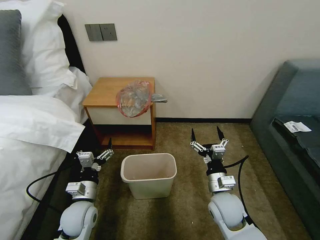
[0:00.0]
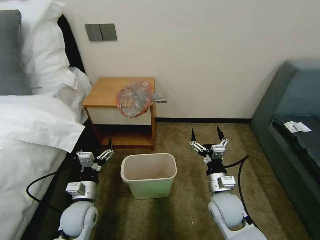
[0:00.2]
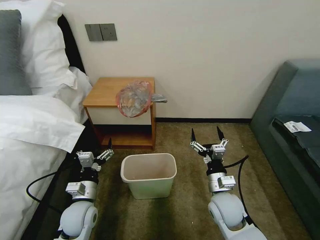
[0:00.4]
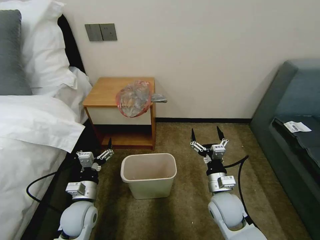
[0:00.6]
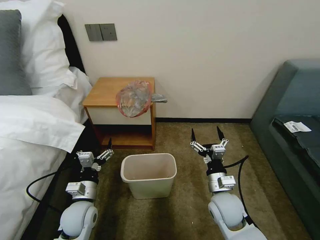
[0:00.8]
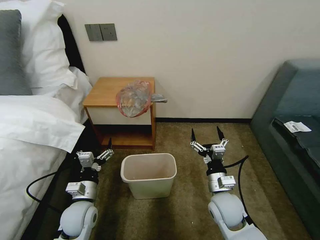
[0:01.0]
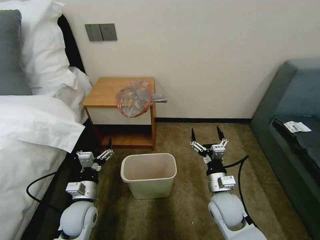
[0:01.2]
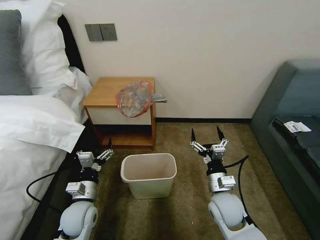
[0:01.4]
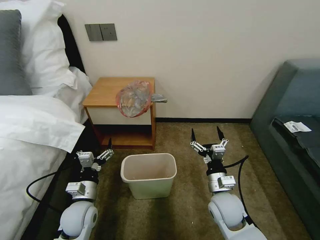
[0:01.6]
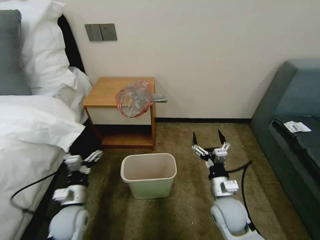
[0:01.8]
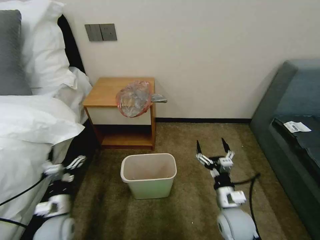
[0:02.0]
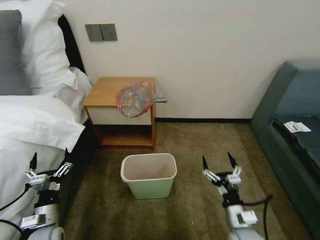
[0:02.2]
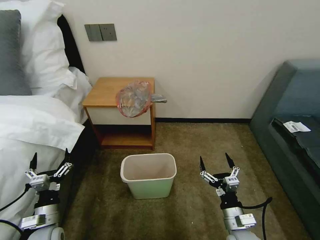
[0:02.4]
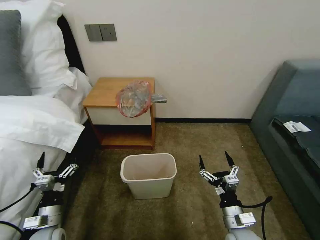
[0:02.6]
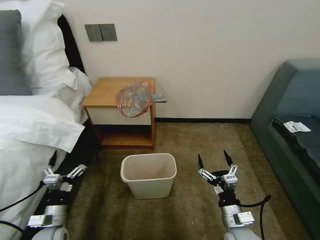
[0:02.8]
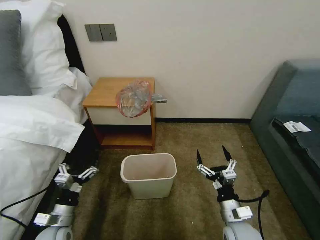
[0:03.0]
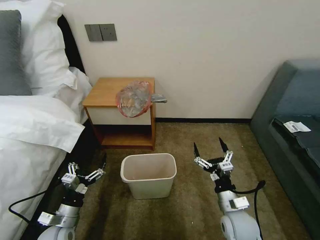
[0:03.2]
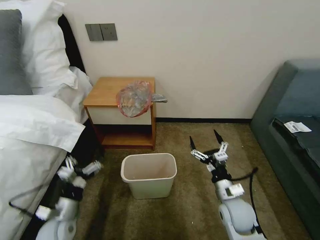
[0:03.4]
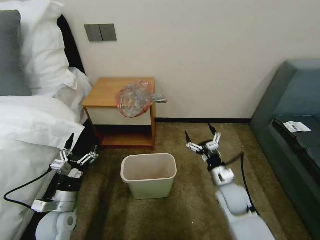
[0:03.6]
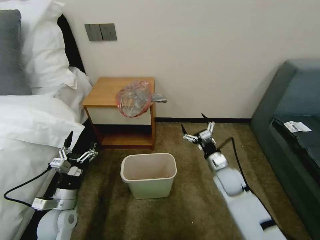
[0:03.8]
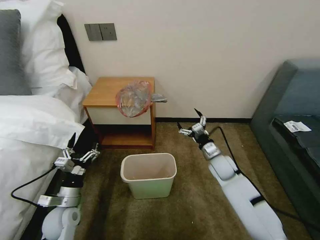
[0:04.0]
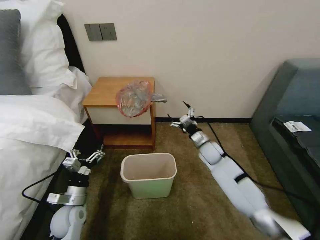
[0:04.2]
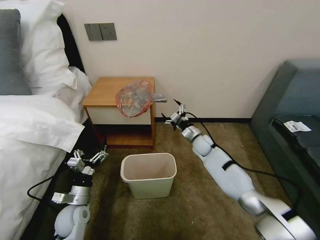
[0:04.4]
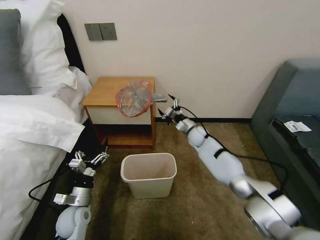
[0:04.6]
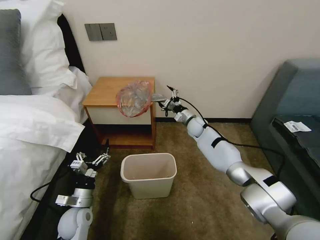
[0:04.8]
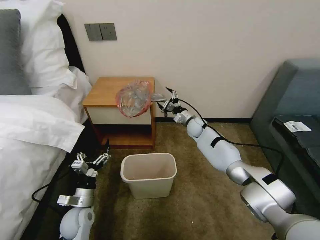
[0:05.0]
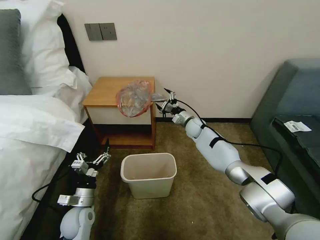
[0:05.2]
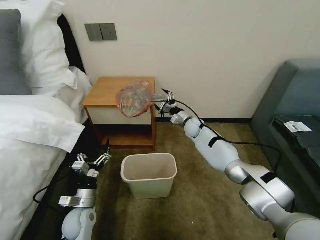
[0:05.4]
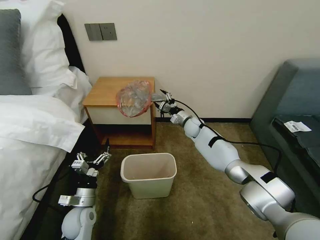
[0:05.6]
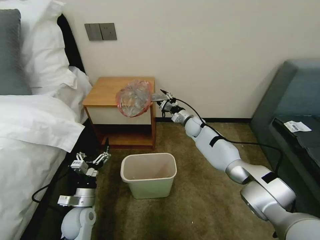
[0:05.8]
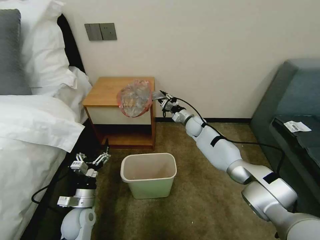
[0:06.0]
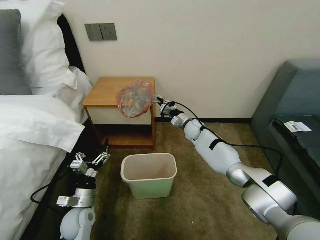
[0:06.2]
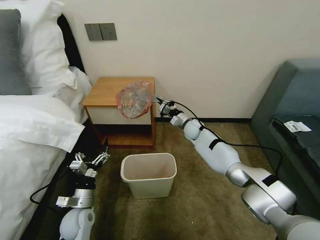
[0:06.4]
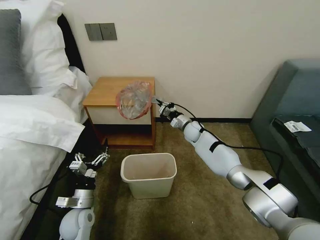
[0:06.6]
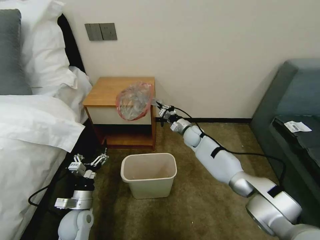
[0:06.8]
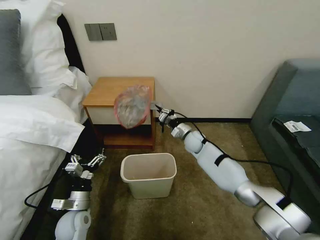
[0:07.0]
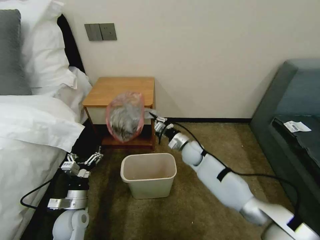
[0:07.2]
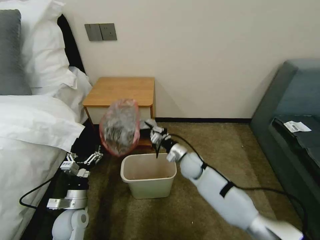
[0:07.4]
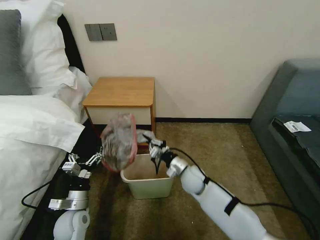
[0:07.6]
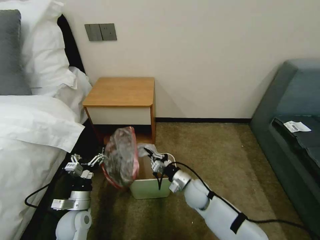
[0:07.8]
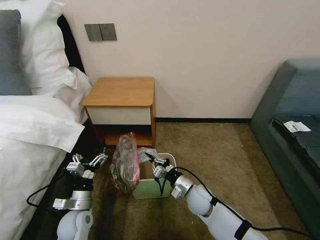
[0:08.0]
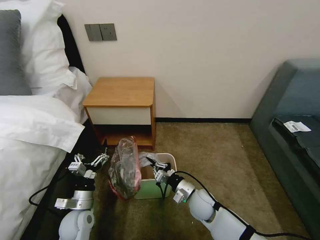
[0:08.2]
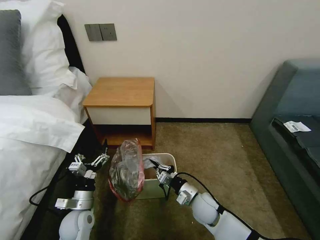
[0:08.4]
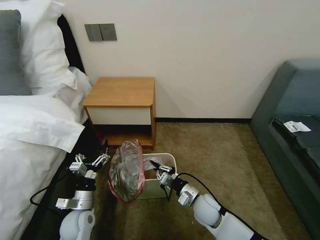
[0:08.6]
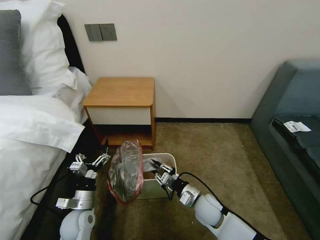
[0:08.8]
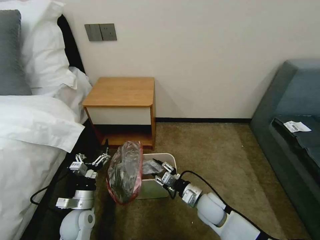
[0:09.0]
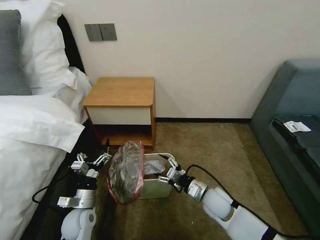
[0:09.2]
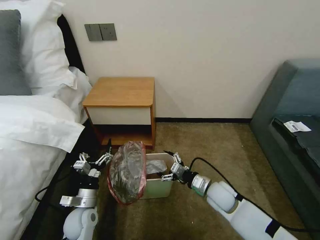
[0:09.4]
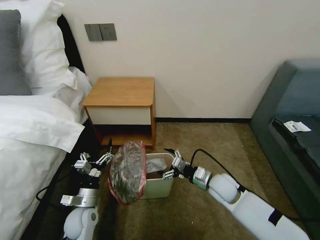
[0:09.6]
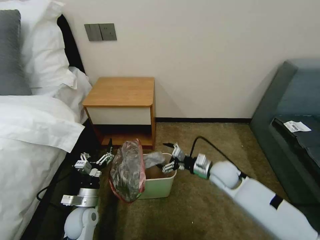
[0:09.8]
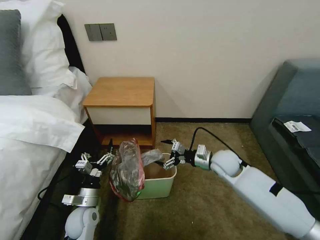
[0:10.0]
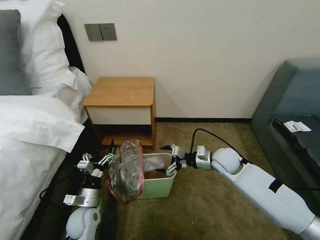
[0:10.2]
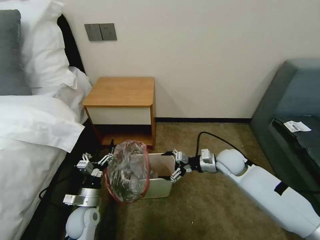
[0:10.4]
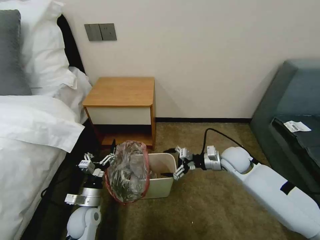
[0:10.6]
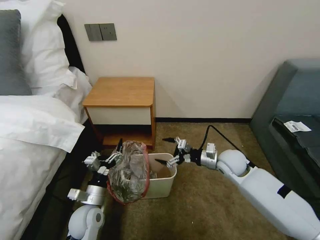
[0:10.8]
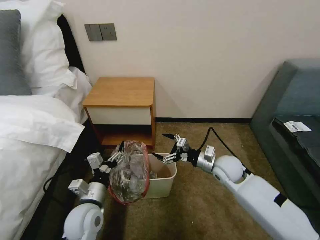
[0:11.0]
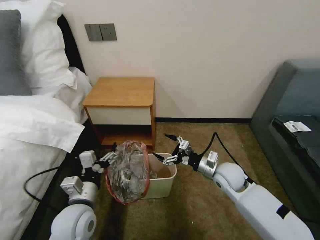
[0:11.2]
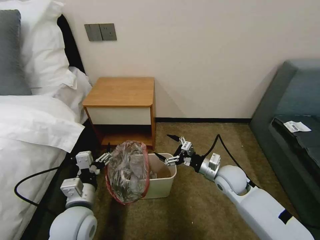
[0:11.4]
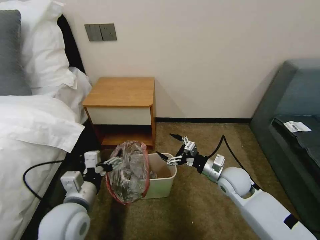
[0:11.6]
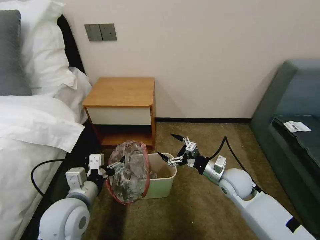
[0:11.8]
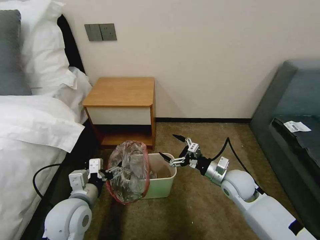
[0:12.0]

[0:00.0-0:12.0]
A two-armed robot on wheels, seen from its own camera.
Task of the whole recording: Pick up the garbage bag from the table and place it over the trash can.
0:01.6 to 0:03.0: The left gripper heads to the left and backward, covering roughly 10 cm. Meanwhile the right gripper travels backward by about 5 cm.
0:03.0 to 0:04.4: The left gripper shifts about 5 cm forward; the right gripper shifts roughly 35 cm forward.
0:04.4 to 0:06.0: The right gripper moves forward, some 5 cm, and closes up.
0:06.0 to 0:07.6: The right gripper travels backward by approximately 25 cm, and closes up.
0:07.6 to 0:09.0: The right gripper moves backward, roughly 10 cm, and opens its fingers.
0:09.0 to 0:10.4: The right gripper moves forward, upward and to the right, about 20 cm, and opens.
0:10.4 to 0:12.0: The right gripper shifts some 10 cm backward. The left gripper heads upward, covering roughly 15 cm.

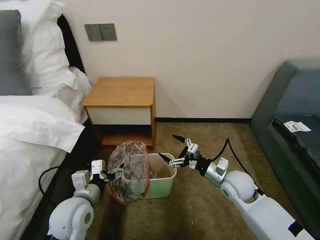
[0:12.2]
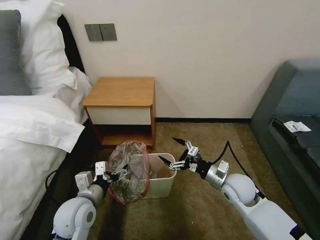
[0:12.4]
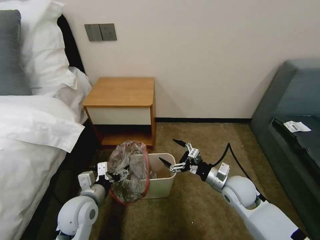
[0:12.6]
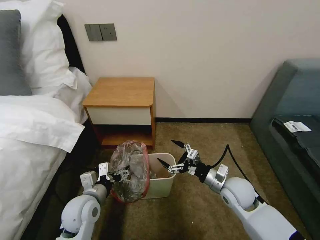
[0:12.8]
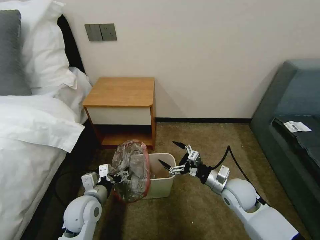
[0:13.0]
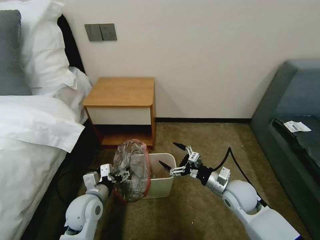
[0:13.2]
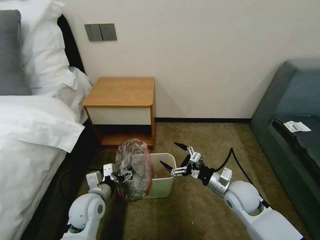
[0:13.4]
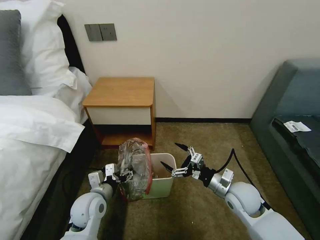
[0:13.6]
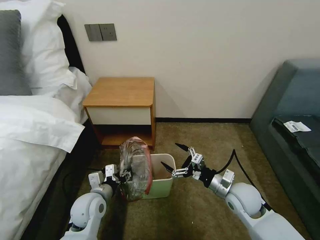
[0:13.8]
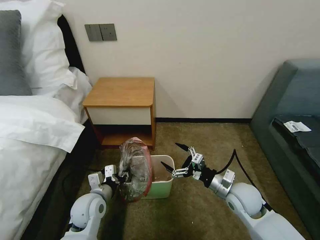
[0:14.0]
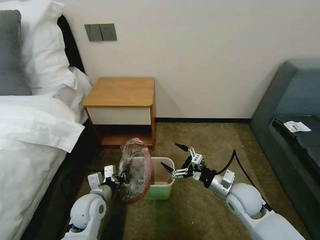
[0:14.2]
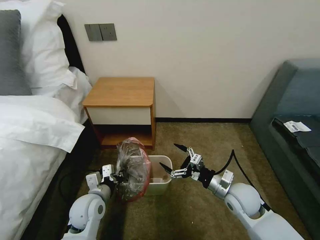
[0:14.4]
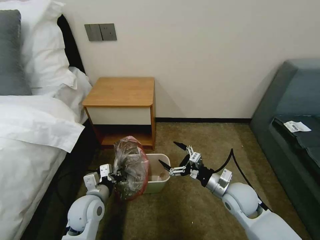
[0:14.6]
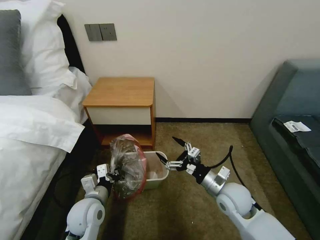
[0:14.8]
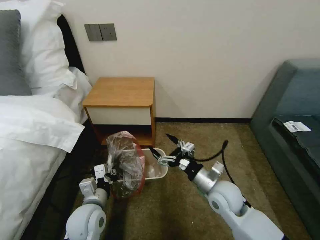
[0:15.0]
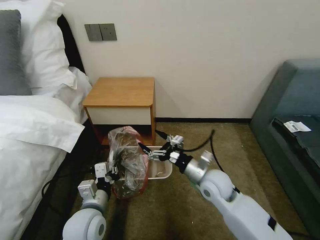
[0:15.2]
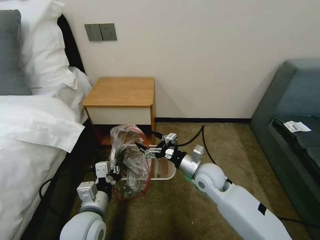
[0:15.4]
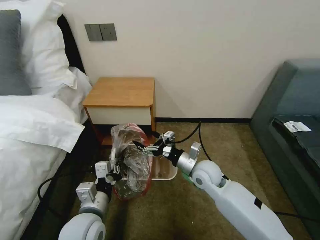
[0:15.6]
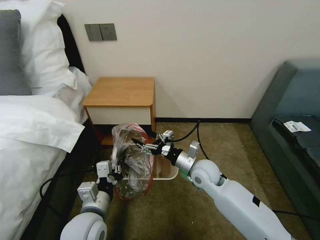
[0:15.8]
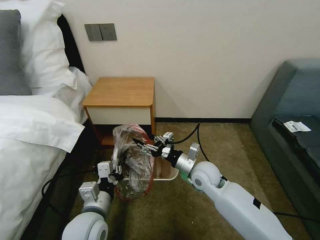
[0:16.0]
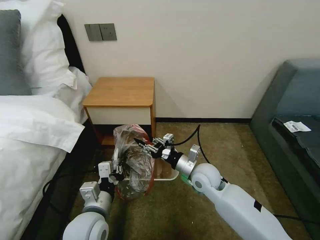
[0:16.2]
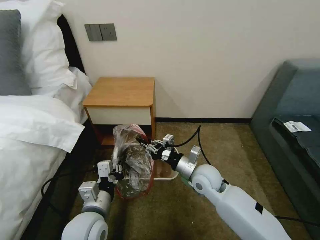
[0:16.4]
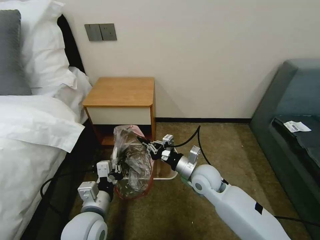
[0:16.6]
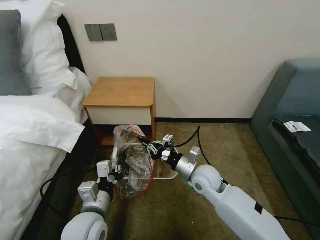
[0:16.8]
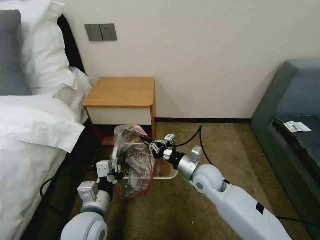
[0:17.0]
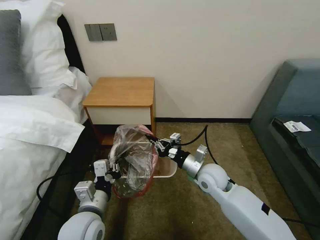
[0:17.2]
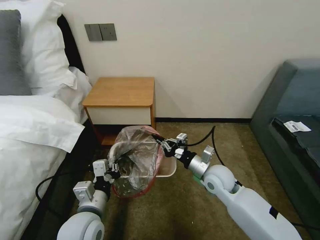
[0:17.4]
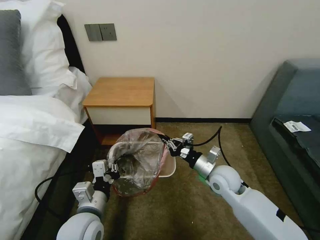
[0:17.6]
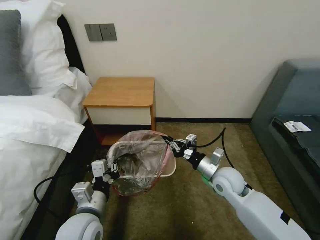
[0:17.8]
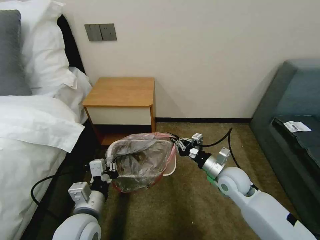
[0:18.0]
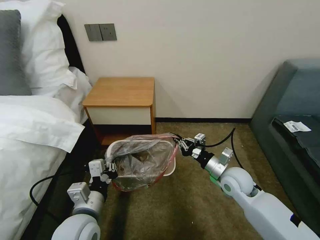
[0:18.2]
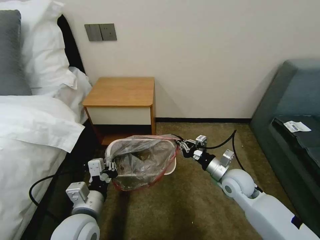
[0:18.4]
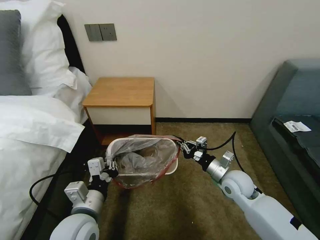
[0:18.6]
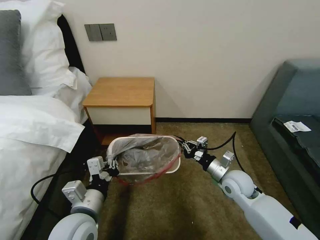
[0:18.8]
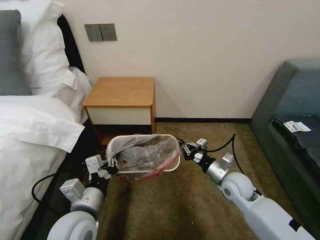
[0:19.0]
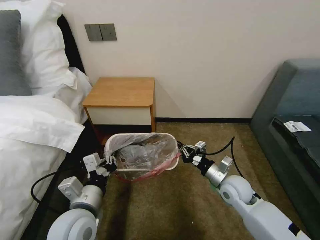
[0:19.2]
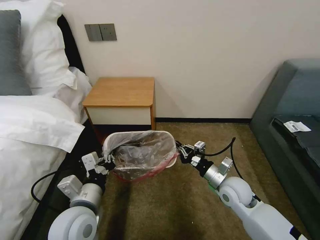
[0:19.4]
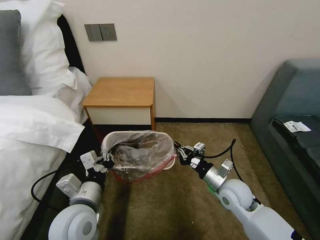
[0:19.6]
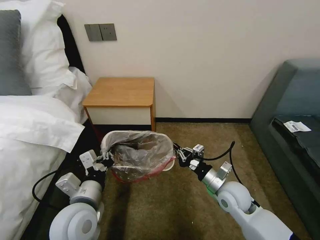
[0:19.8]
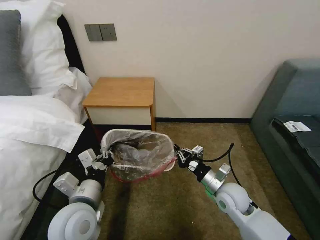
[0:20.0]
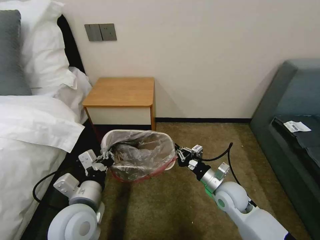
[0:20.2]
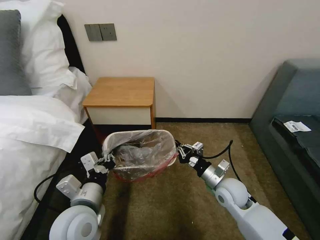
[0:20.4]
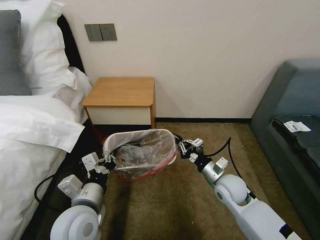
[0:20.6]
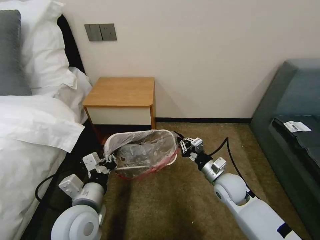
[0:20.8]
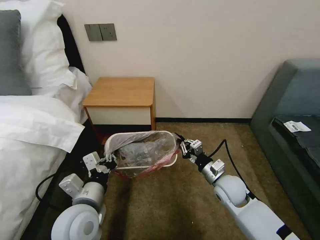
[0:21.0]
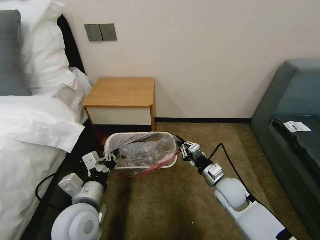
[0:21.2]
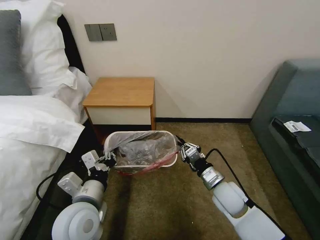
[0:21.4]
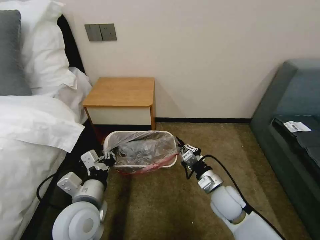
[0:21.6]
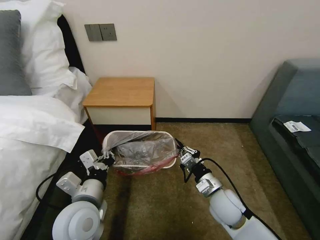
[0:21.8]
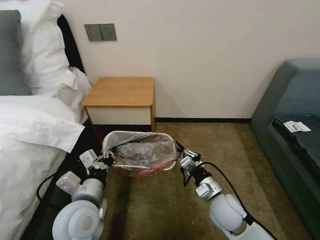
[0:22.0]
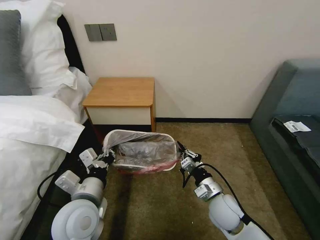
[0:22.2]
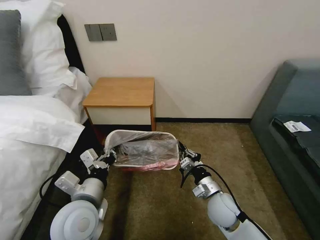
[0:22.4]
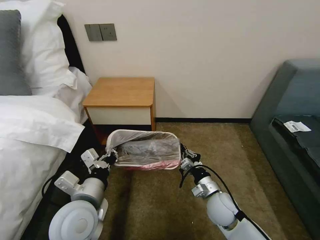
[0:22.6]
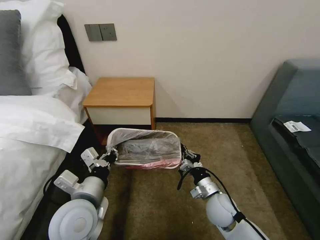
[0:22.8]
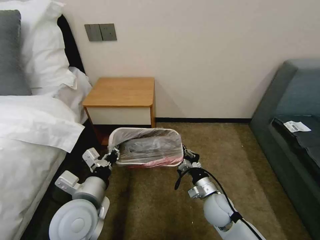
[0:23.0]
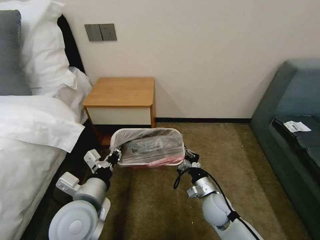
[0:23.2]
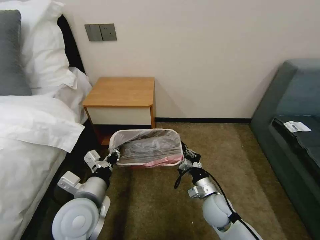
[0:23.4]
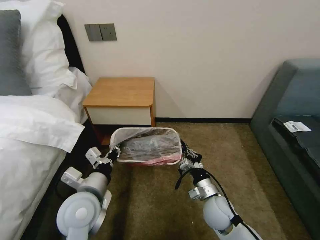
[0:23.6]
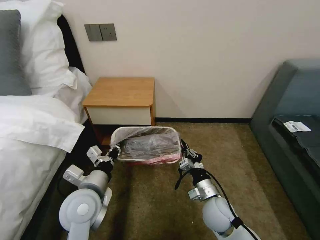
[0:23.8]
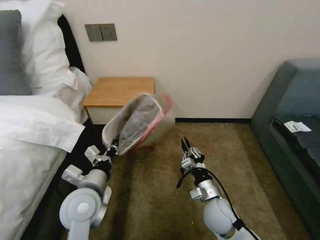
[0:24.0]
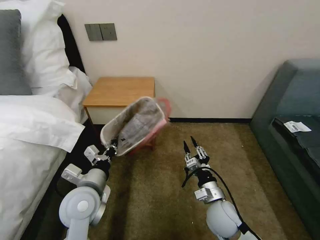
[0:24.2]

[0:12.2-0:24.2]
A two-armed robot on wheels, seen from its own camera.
Task of the whole recording: Pick up the garbage bag from the table and place it over the trash can.
0:12.2 to 0:13.8: The left gripper goes some 5 cm downward, and closes its fingers.
0:13.8 to 0:15.2: The right gripper moves to the left, roughly 10 cm. The left gripper goes roughly 5 cm backward, and closes up.
0:15.2 to 0:16.6: The right gripper closes its fingers.
0:16.6 to 0:18.2: The right gripper travels to the right by some 10 cm.
0:18.2 to 0:19.8: There are only small adjustments of the grippers.
0:21.2 to 0:22.6: The right gripper moves roughly 5 cm.
0:22.6 to 0:24.2: The right gripper opens its fingers. The left gripper moves roughly 5 cm.
